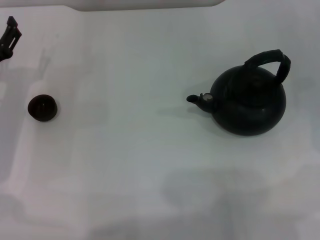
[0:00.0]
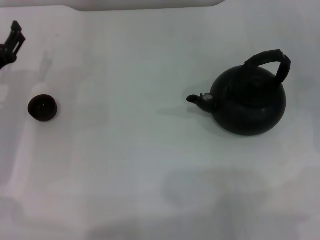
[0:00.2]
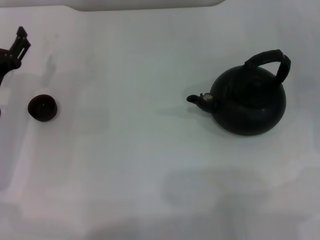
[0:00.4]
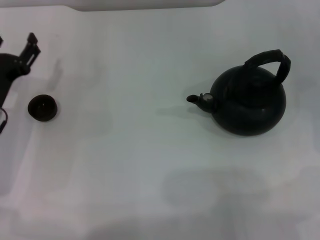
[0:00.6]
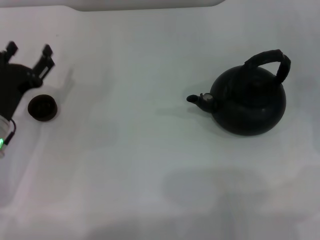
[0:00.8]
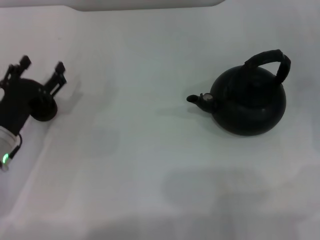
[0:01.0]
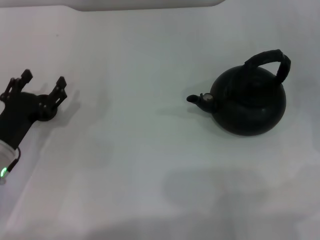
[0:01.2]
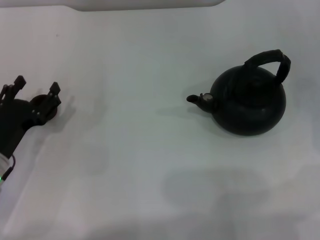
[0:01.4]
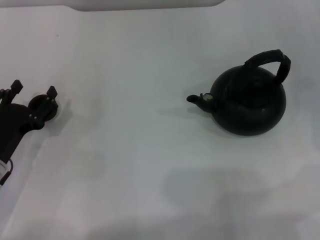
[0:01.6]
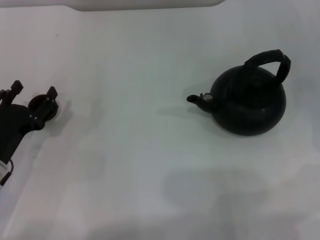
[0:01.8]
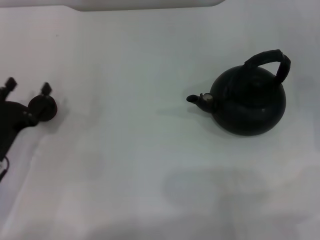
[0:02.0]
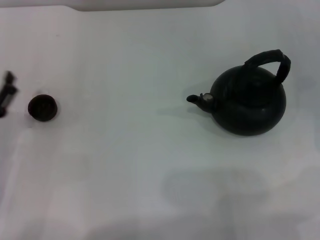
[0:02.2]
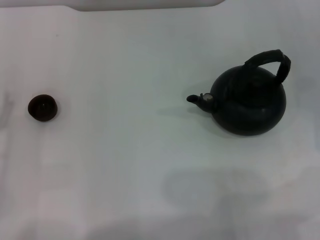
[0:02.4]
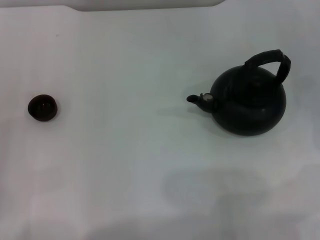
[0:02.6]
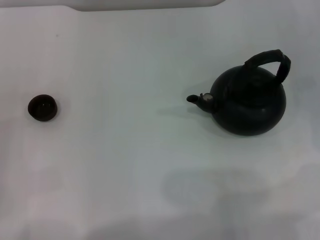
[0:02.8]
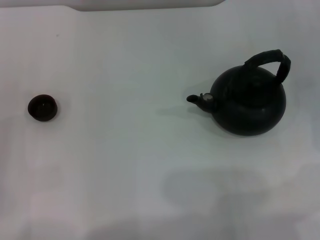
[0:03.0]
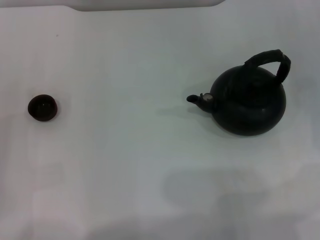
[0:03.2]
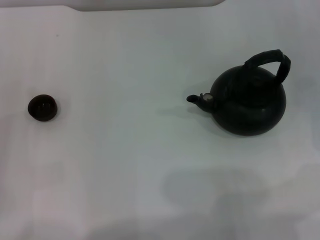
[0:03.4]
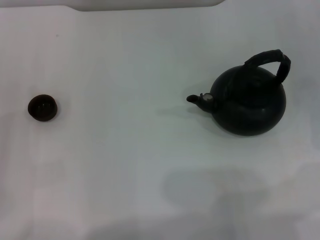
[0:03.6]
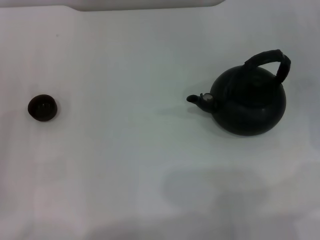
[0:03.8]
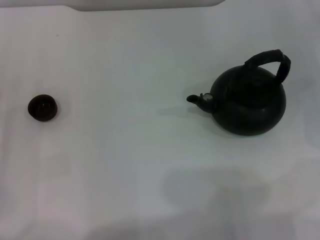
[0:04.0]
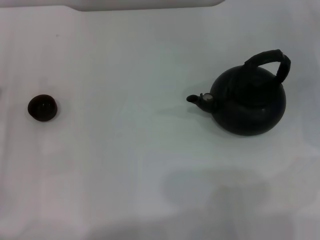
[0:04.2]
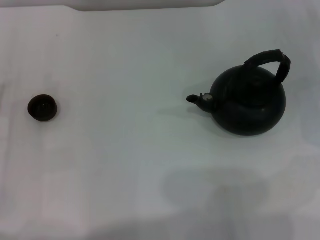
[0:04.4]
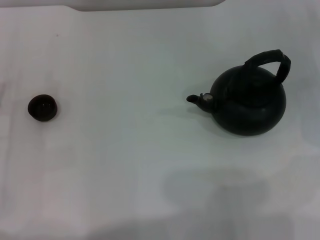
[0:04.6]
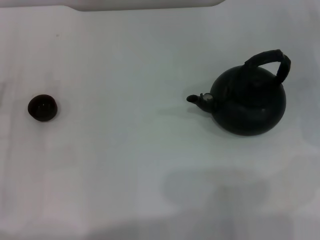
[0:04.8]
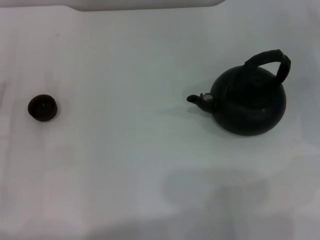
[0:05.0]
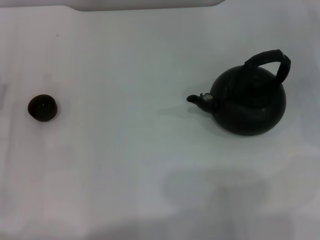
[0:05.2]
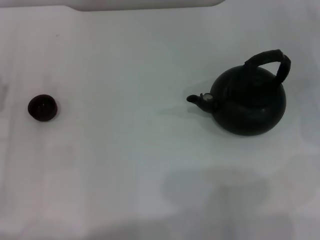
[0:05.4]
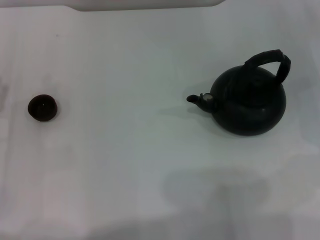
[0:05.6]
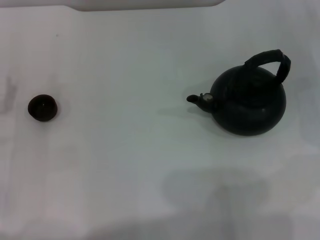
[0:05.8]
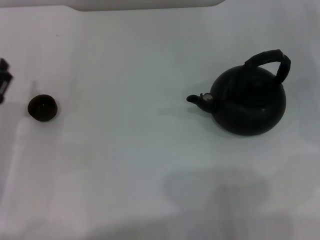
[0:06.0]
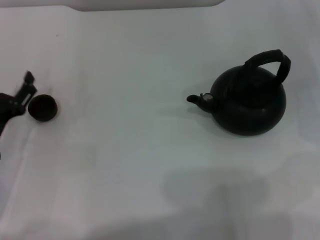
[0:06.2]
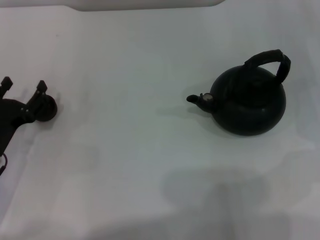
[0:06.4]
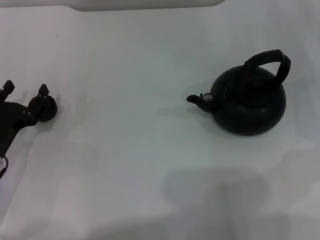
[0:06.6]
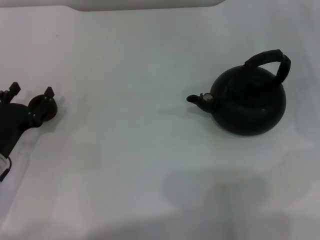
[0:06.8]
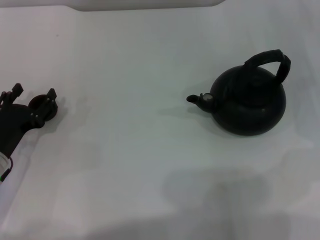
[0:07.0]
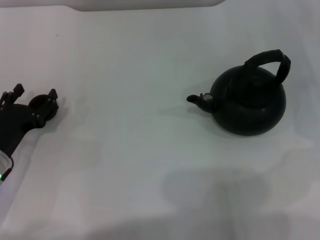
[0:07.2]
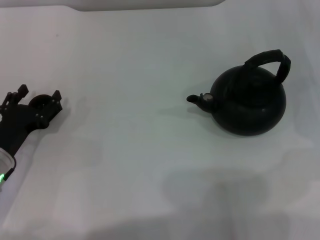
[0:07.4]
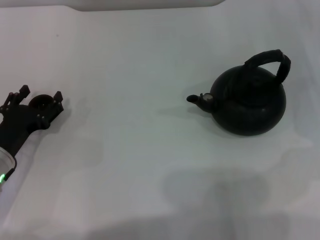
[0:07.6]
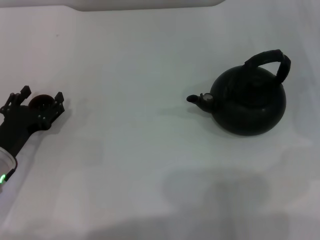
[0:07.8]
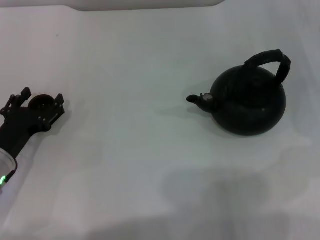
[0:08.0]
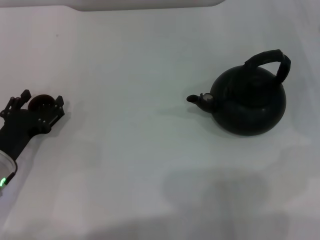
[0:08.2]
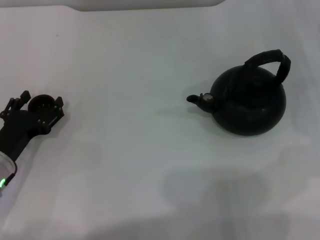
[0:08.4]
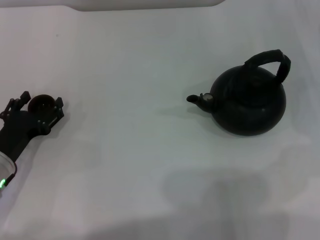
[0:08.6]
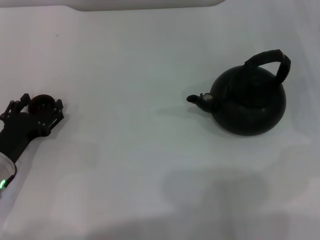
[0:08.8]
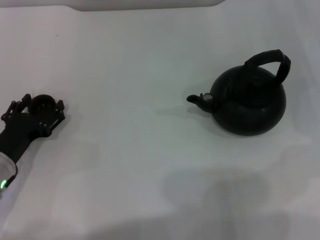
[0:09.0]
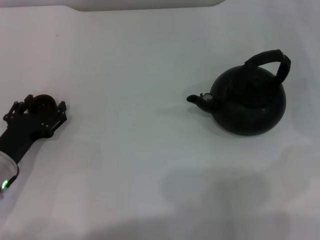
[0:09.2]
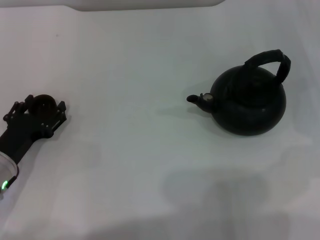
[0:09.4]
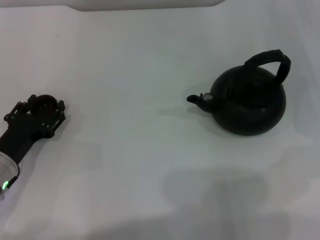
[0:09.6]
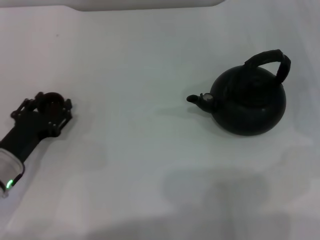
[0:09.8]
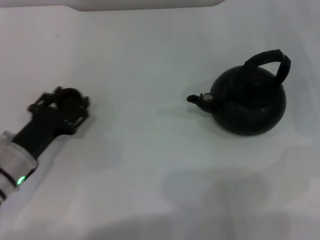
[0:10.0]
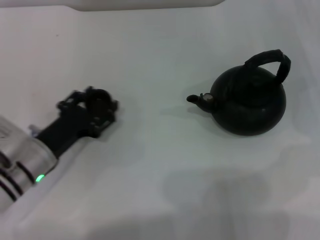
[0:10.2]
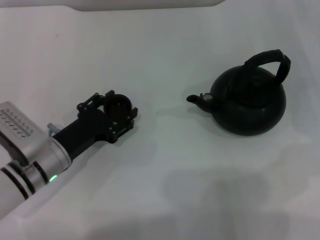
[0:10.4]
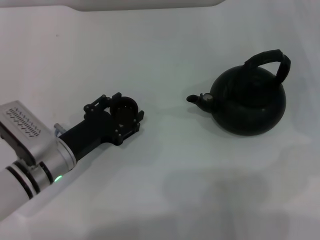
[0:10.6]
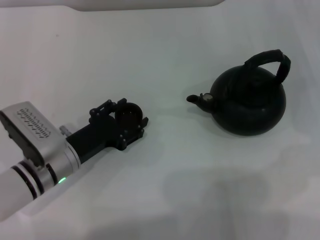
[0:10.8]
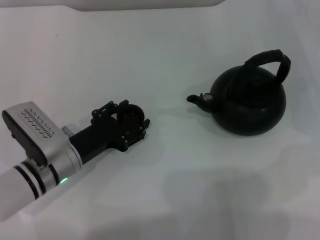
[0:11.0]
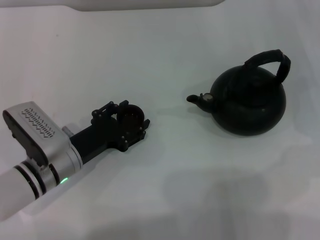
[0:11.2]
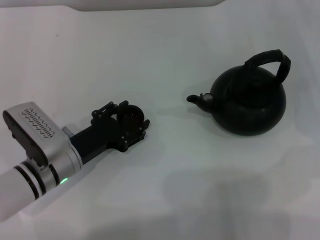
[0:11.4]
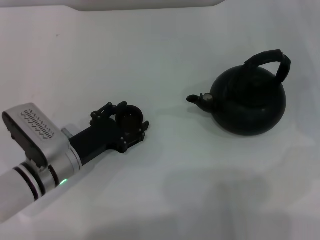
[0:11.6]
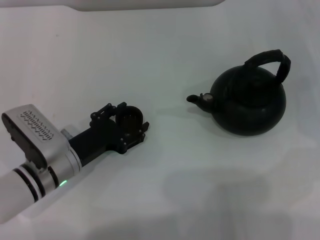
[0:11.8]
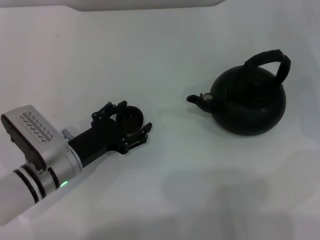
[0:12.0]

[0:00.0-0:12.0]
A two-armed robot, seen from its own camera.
Task of the whole recording: Grasp the handle of the teapot with one hand and pour tea into the teacup.
Step, 0:00.0 to 0:10.0: Pick up the teacup with the left gripper.
0:00.0 to 0:01.6: The left gripper shifts some 10 cm backward.
0:01.6 to 0:03.0: The left gripper moves to the left, approximately 5 cm.
0:06.0 to 0:07.6: The grippers move only a little.
0:07.6 to 0:09.0: Both grippers stay put.
0:09.0 to 0:10.4: The left gripper is displaced to the right by roughly 5 cm, and closes.
0:10.4 to 0:12.0: The grippers make only small movements.

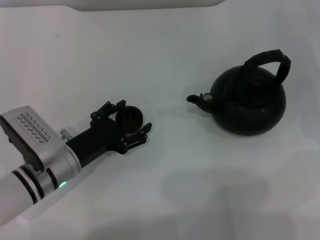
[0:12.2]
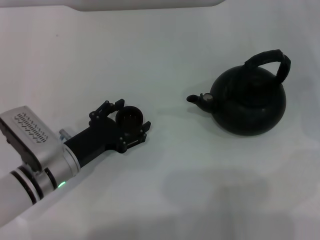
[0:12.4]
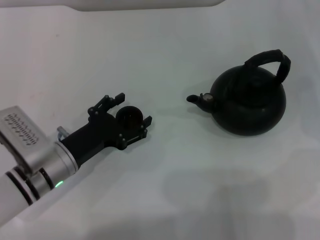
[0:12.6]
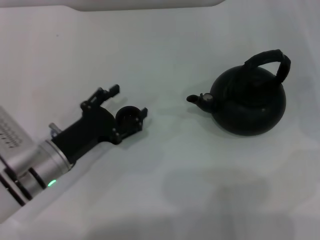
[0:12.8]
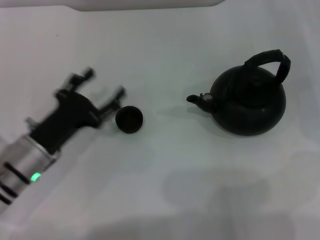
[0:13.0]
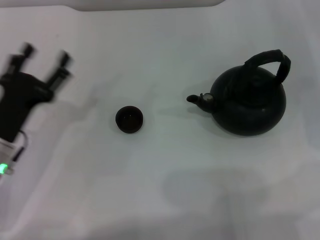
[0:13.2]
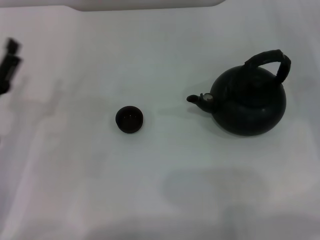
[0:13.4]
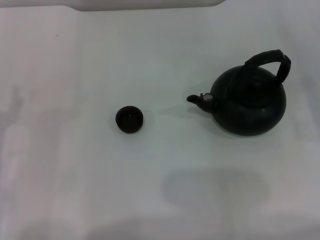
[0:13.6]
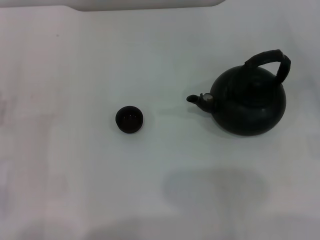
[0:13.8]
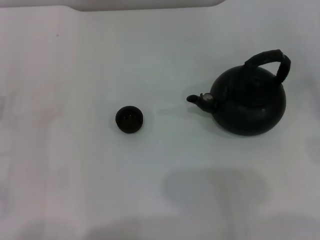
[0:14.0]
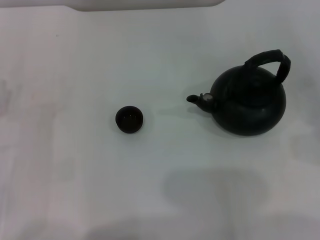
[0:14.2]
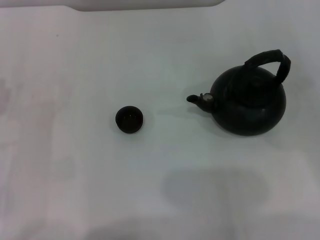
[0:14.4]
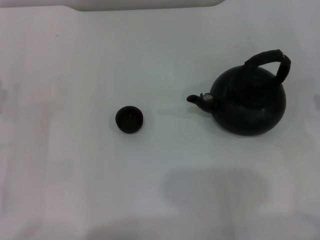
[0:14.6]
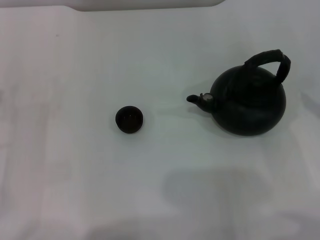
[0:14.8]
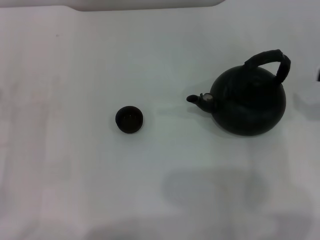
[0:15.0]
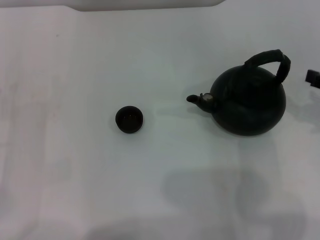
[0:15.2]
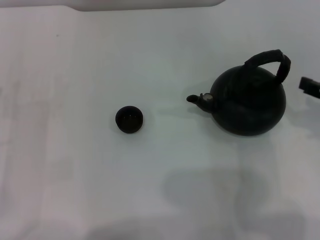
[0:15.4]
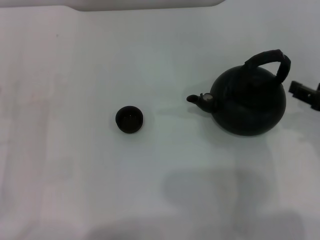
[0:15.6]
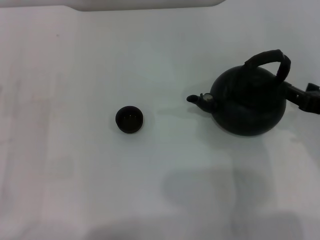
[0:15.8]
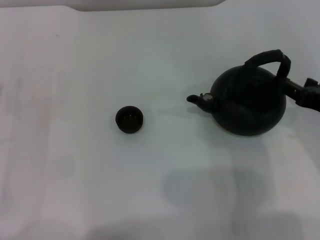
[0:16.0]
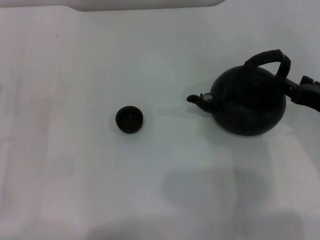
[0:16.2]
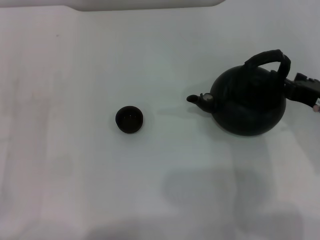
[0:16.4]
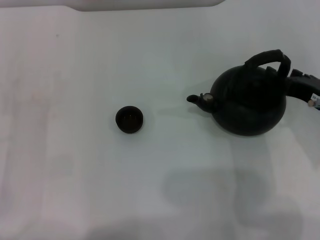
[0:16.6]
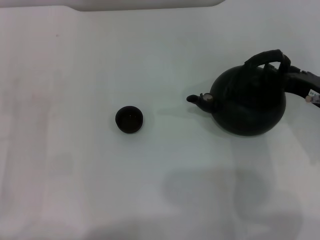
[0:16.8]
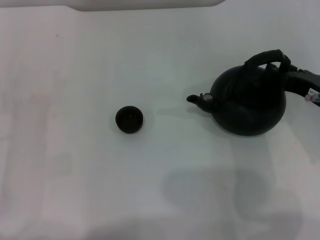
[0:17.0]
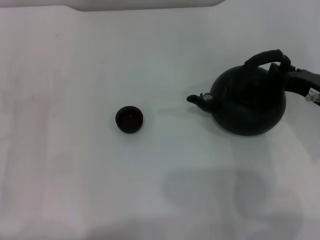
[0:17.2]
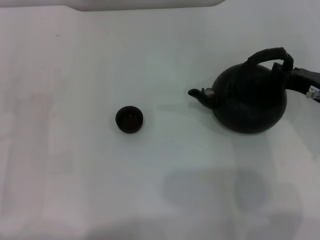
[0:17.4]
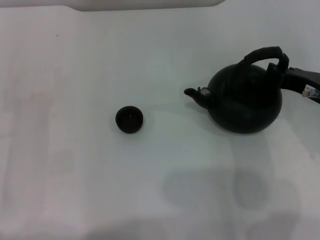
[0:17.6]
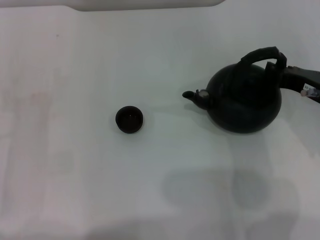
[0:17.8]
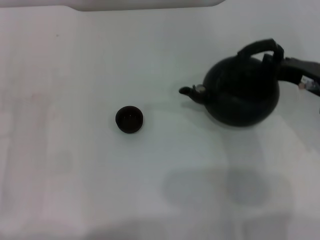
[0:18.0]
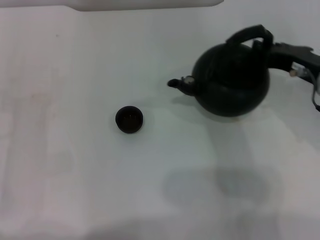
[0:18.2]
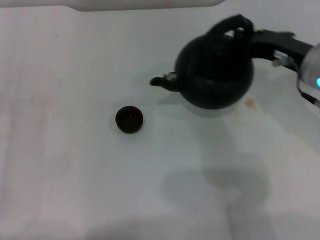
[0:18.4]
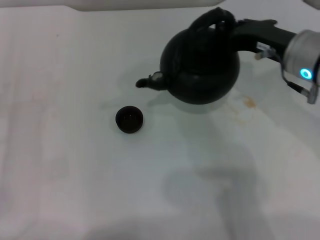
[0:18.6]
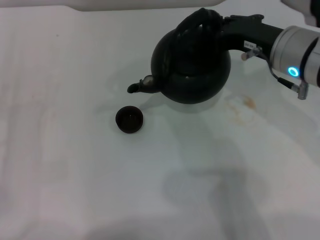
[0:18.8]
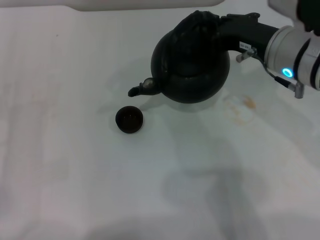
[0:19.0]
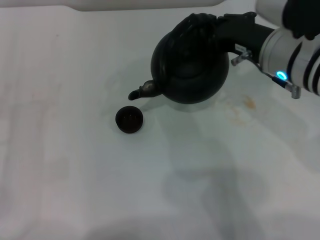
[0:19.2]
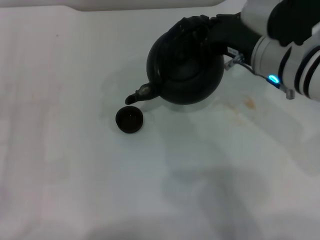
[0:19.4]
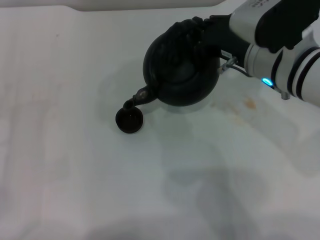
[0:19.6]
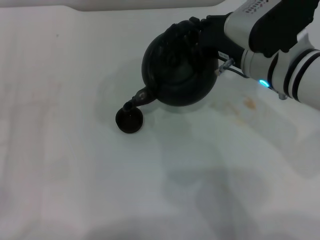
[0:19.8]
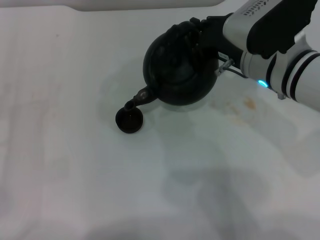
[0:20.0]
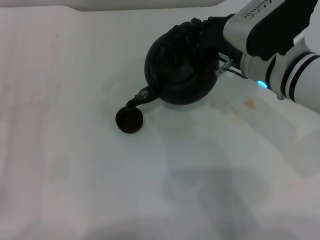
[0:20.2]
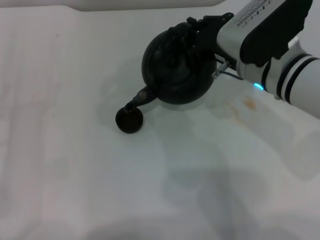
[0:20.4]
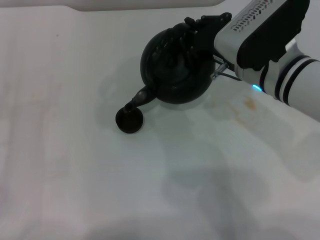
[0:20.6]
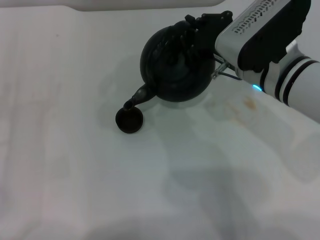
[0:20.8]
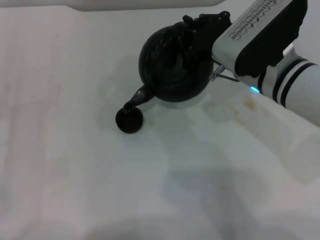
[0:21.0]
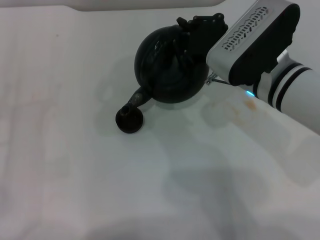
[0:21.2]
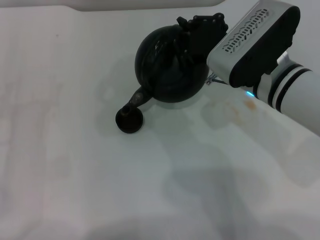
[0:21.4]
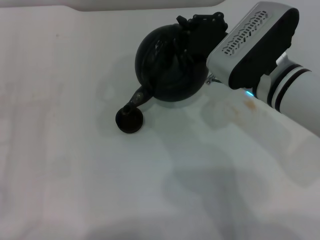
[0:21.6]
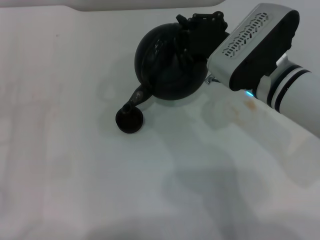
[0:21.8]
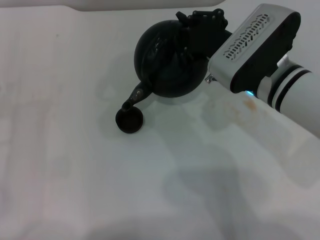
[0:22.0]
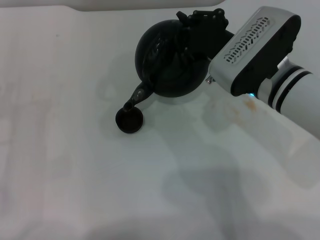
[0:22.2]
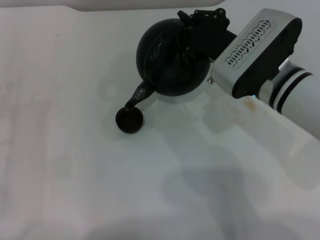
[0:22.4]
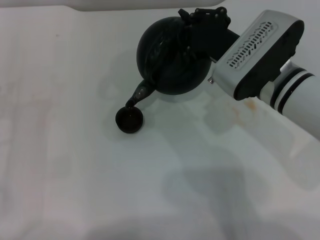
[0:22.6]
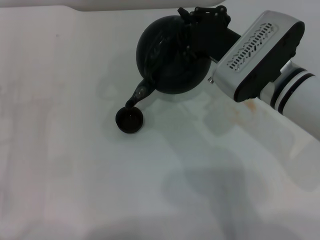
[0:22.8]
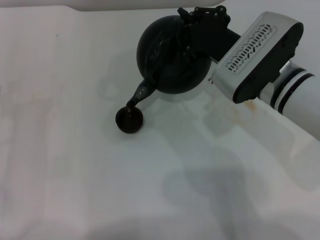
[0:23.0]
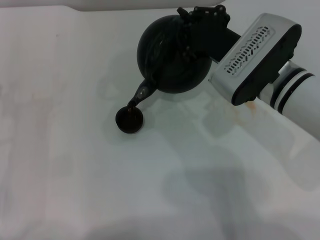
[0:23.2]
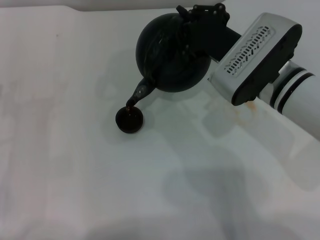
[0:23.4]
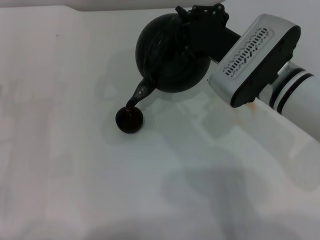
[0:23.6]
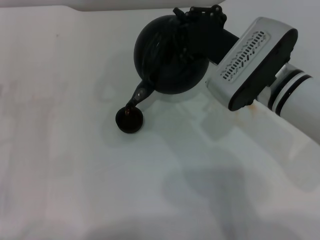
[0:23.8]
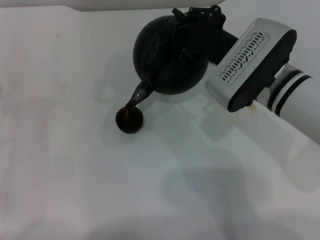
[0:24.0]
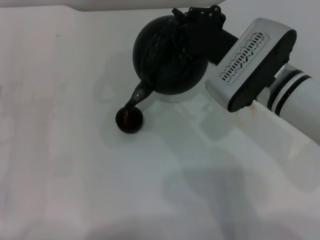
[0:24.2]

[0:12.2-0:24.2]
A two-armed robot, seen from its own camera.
Task of the whole recording: Grasp the handle of the teapot with one hand and pour tea into the teacup.
Step, 0:13.0 to 0:18.4: Pick up the teapot with the right gripper.
0:12.2 to 0:13.8: The left gripper heads to the left, covering some 15 cm, and opens. Meanwhile the right gripper heads backward and to the right, covering about 15 cm.
0:15.2 to 0:16.6: The right gripper moves downward, about 5 cm.
0:16.6 to 0:18.2: The right gripper ends up approximately 5 cm from where it was, and closes its fingers.
0:18.2 to 0:19.8: The right gripper is displaced to the left by about 10 cm.
0:19.8 to 0:22.6: The grippers make only small movements.
0:22.6 to 0:24.2: The grippers make only small movements.
